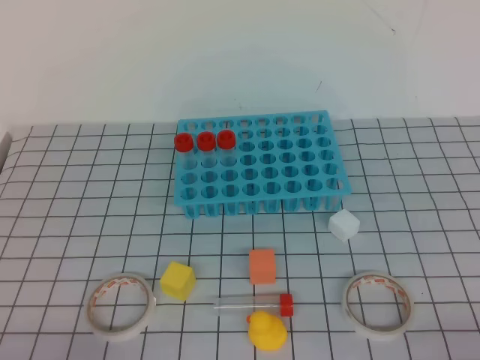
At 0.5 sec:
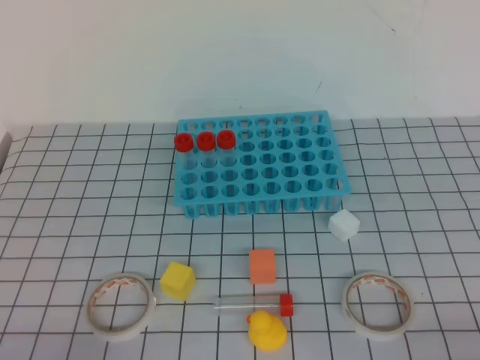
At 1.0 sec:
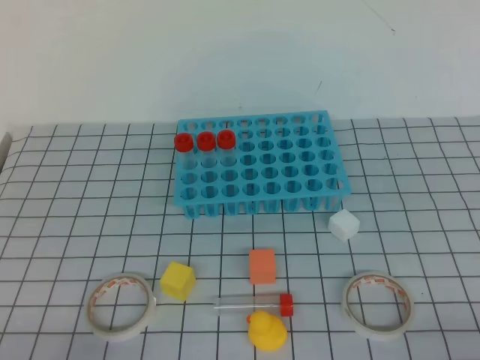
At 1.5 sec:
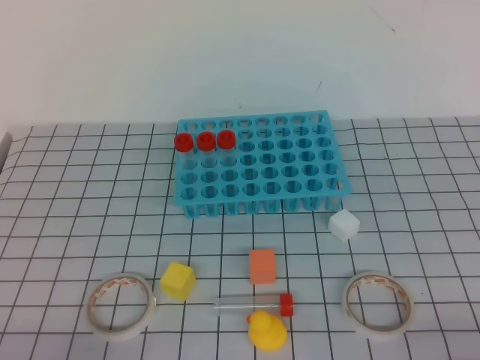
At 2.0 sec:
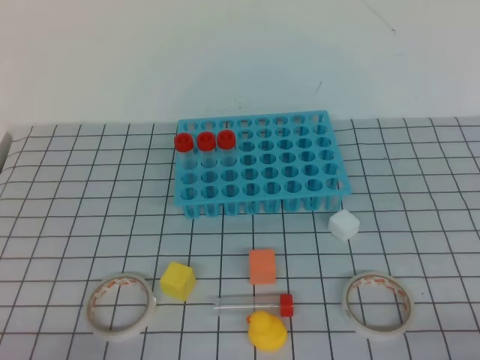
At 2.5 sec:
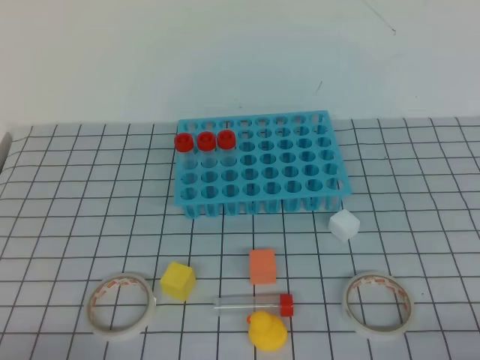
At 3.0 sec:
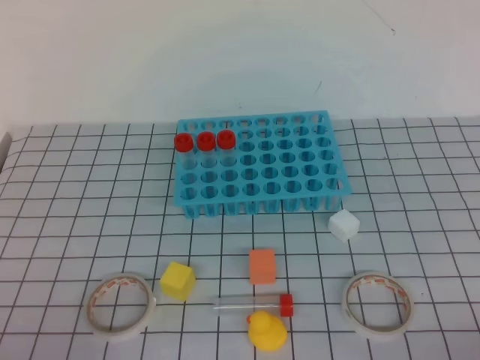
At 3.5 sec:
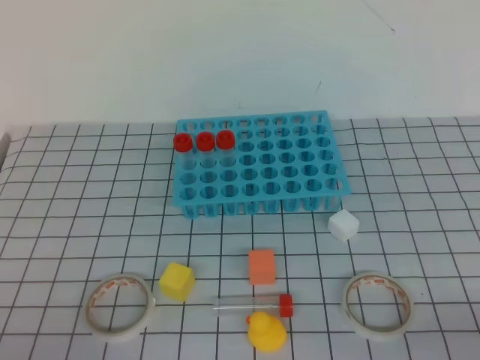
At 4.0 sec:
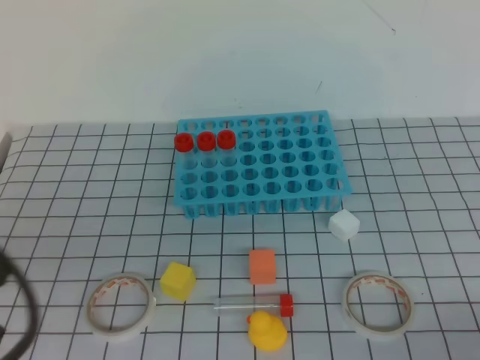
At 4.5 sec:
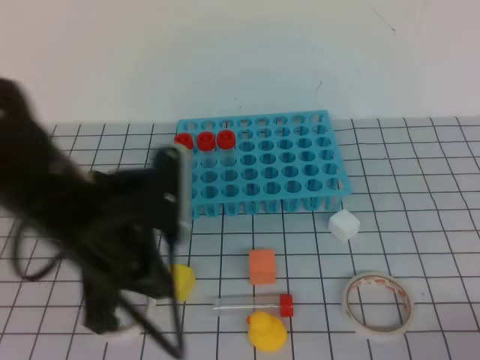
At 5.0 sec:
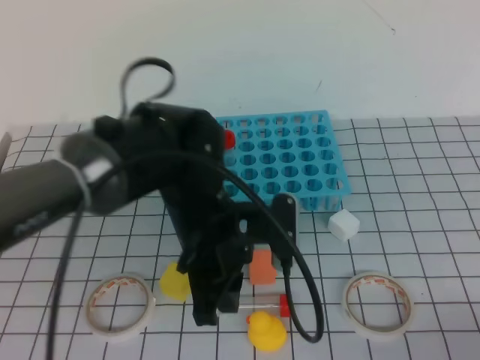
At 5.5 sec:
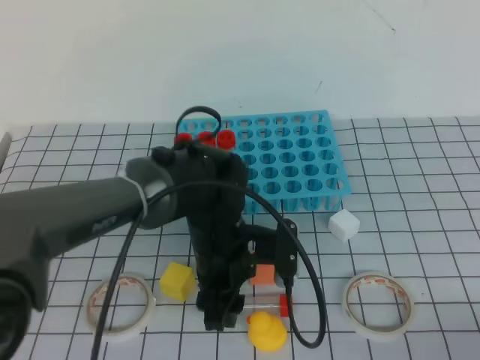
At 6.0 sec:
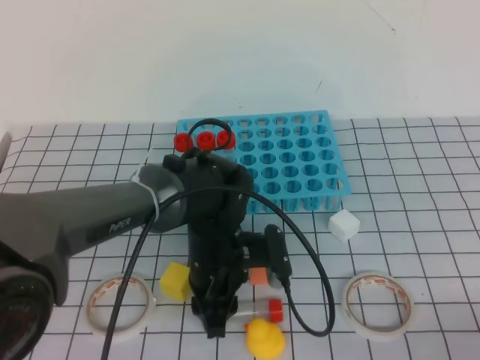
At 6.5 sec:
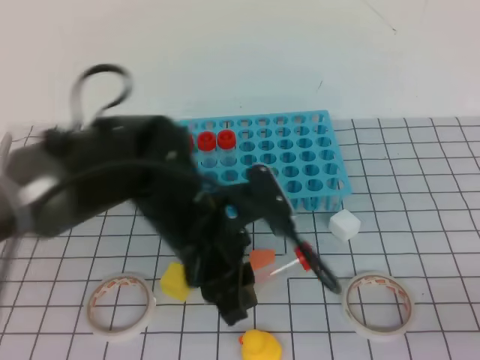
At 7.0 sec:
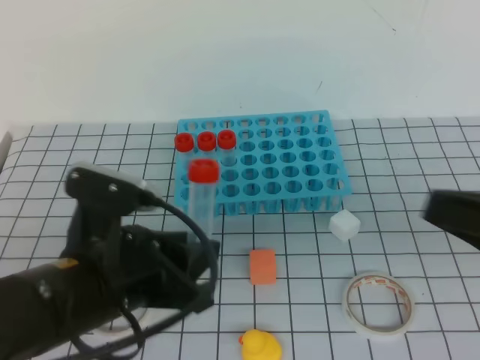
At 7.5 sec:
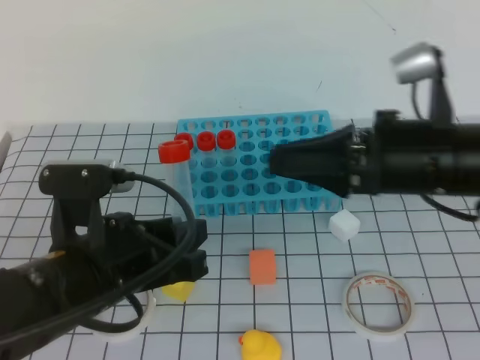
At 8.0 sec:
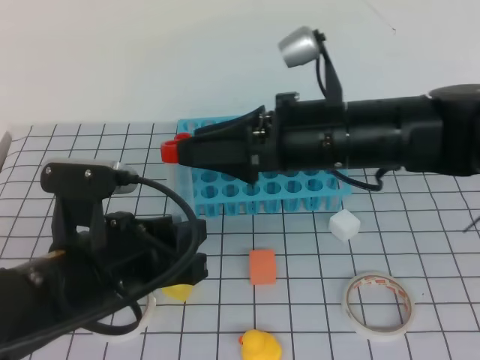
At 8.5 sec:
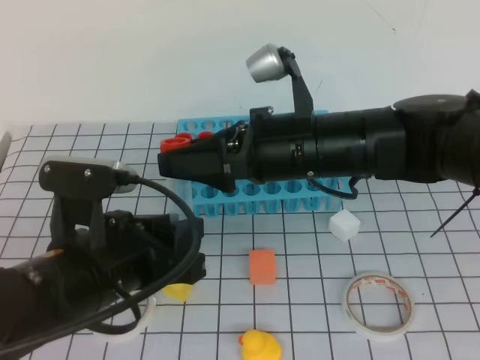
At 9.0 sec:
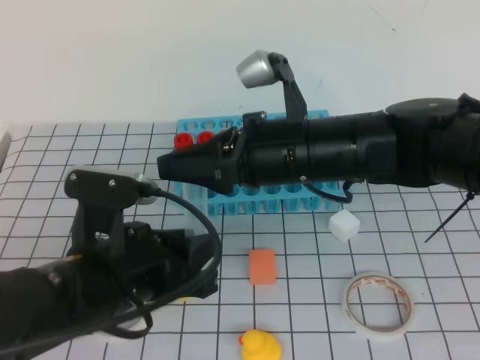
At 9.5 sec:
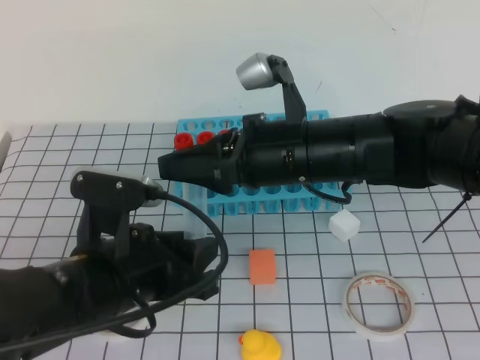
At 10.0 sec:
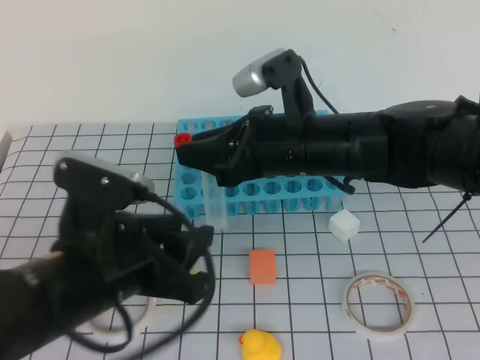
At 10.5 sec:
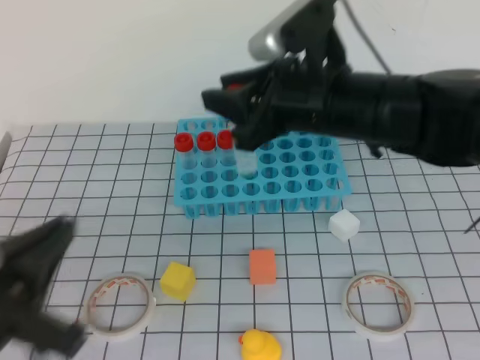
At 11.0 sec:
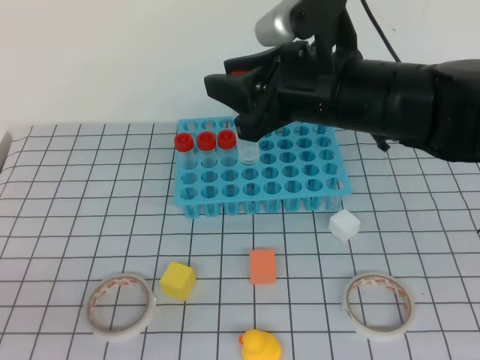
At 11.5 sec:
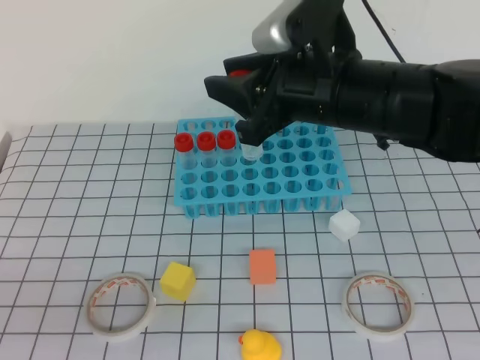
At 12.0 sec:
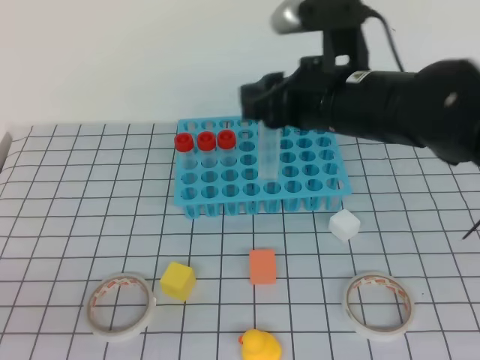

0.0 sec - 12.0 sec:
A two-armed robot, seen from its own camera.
0.0 sec - 2.0 sec: Neither gripper changes place.
2.0 sec - 4.0 sec: The left gripper goes roughly 15 cm upward.
4.0 sec - 6.0 sec: The left gripper travels to the right, forward and downward by about 35 cm, and opens.
6.0 sec - 8.0 sec: The left gripper goes about 20 cm backward, upward and to the left; the right gripper moves forward, to the left and upward, approximately 35 cm, and opens.
8.0 sec - 10.0 sec: The right gripper closes.
10.0 sec - 12.0 sec: The right gripper shifts by about 5 cm. The left gripper heads backward and to the left, covering roughly 20 cm, and closes its fingers.

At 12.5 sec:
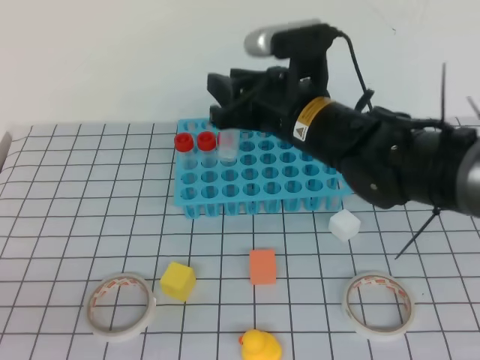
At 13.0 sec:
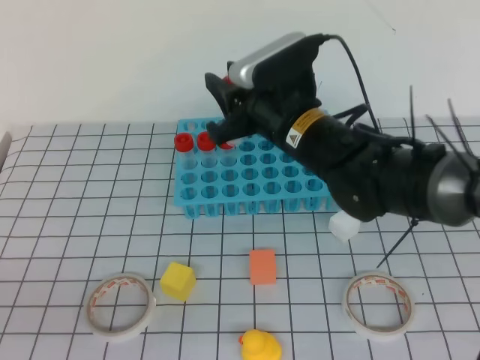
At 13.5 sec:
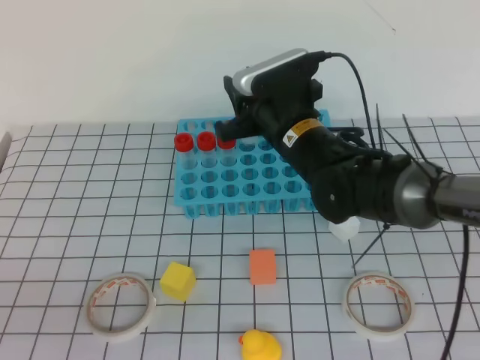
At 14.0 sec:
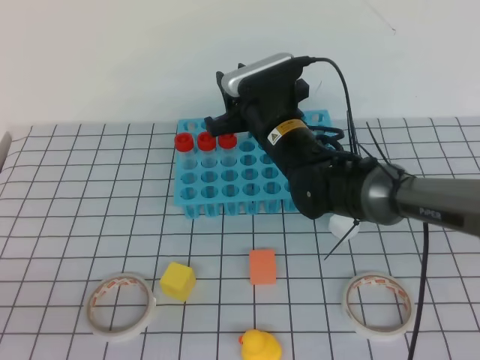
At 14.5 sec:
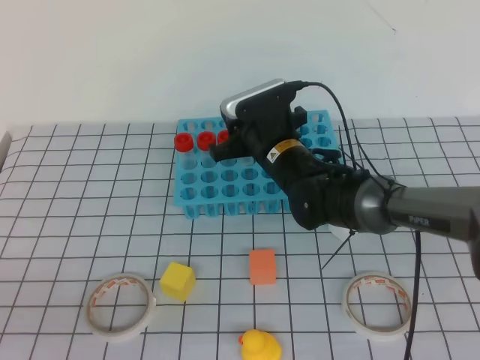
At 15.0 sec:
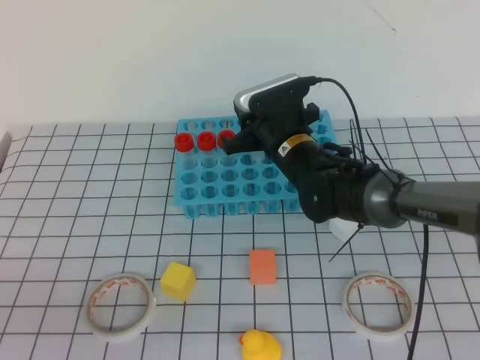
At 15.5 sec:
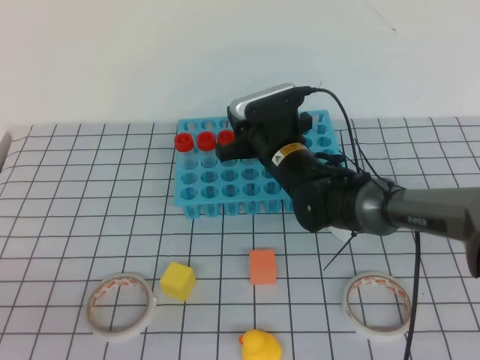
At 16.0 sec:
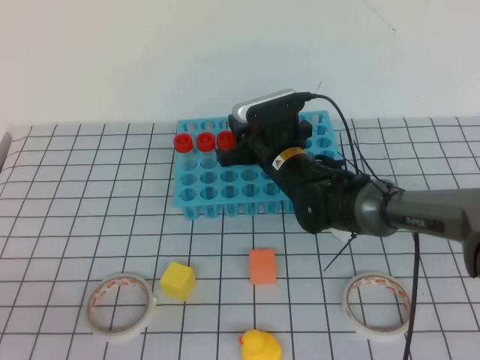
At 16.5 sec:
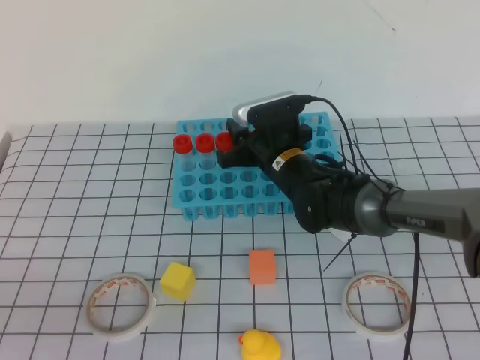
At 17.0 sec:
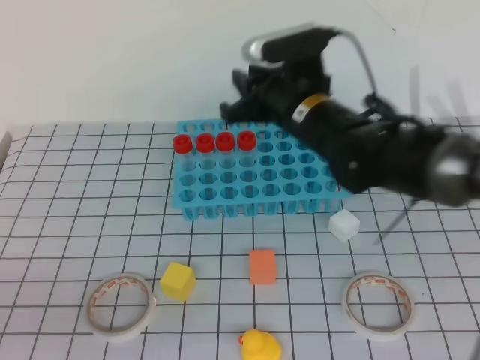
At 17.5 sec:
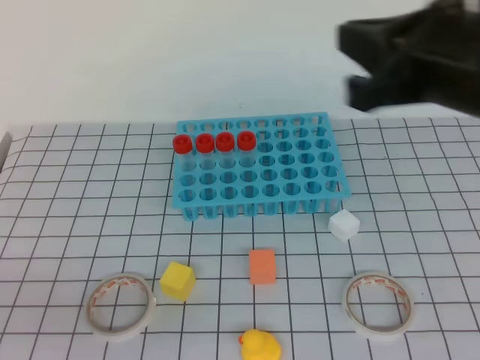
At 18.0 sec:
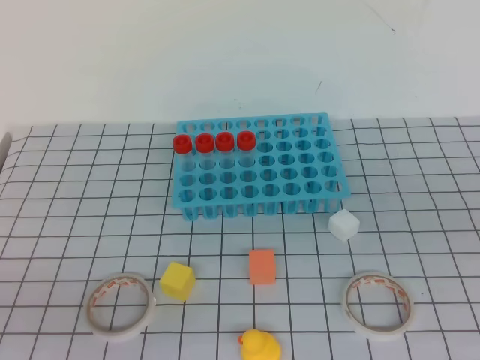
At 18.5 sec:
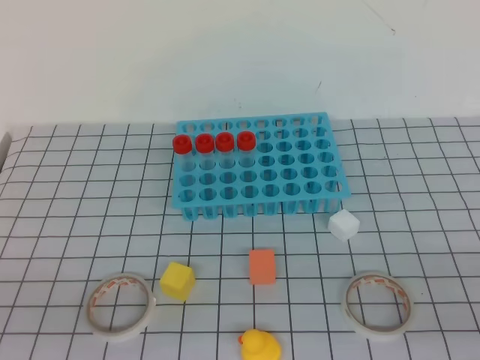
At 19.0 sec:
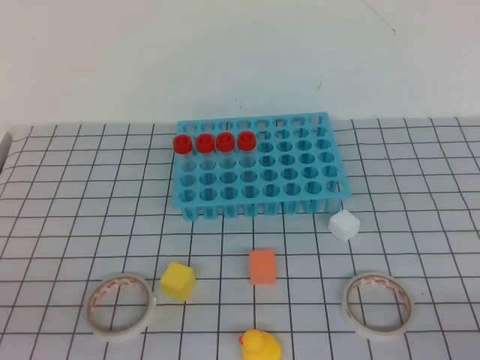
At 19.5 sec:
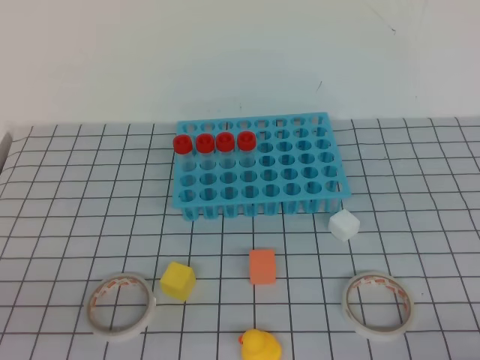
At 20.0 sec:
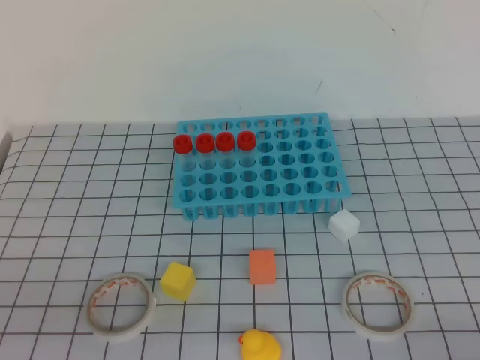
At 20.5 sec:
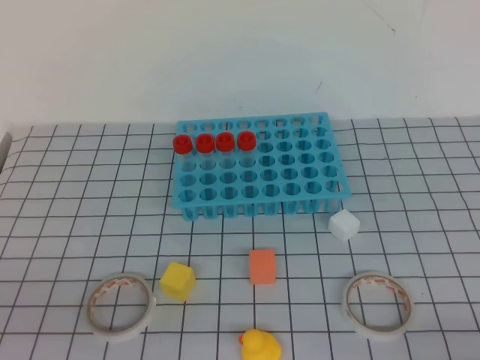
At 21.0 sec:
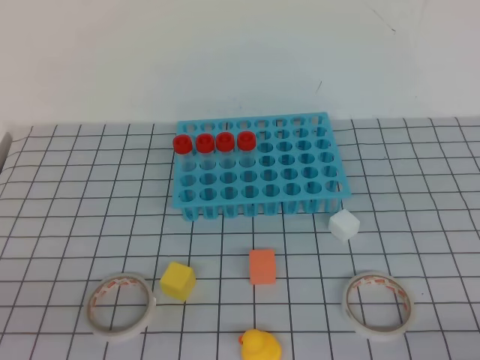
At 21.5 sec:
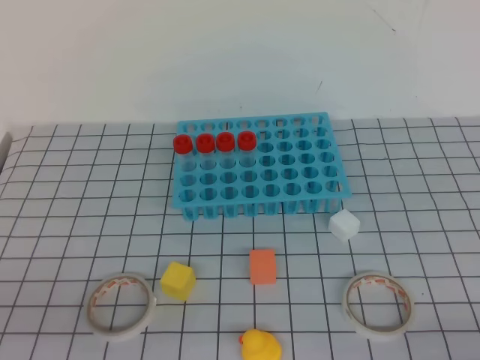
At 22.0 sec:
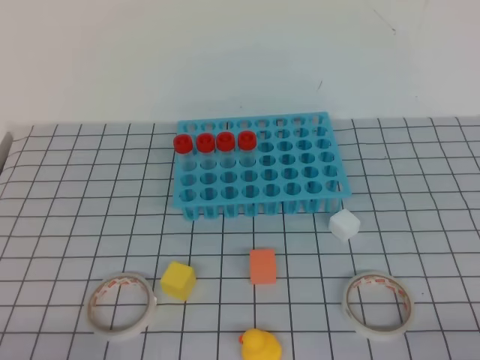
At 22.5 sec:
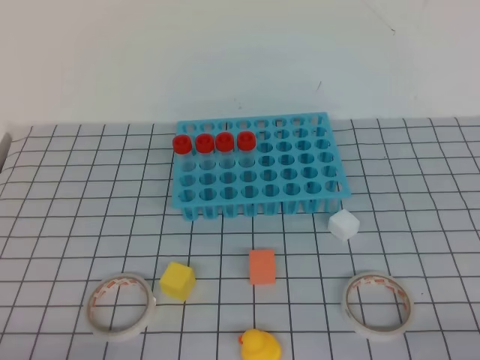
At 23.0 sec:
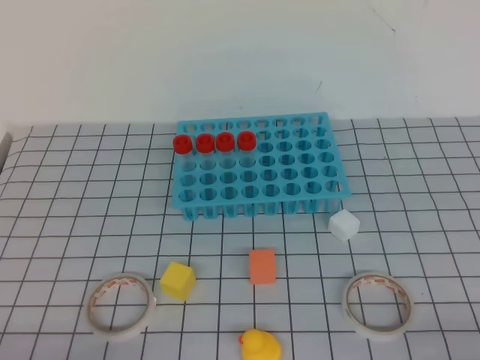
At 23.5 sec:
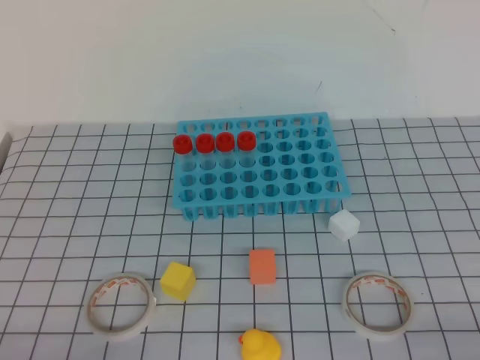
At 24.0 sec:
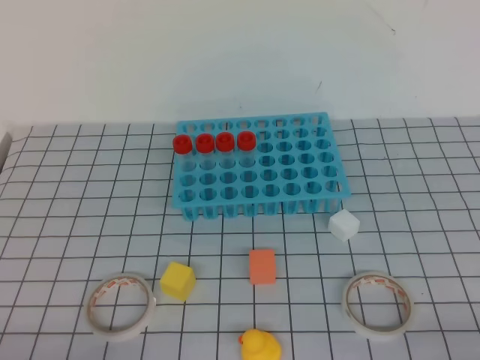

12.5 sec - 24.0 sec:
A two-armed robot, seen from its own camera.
12.5 sec - 14.5 sec: The right gripper travels downward and forward by some 15 cm.
14.5 sec - 16.5 sec: The grippers make only small movements.
16.5 sec - 18.5 sec: The right gripper is displaced backward and to the right by some 40 cm, and closes.
